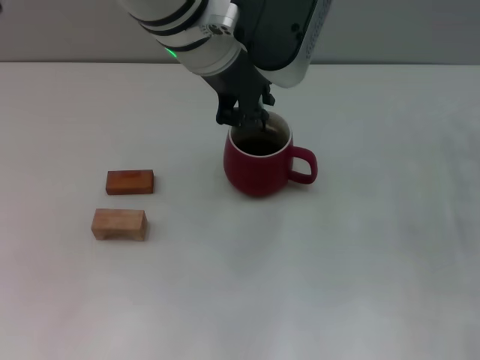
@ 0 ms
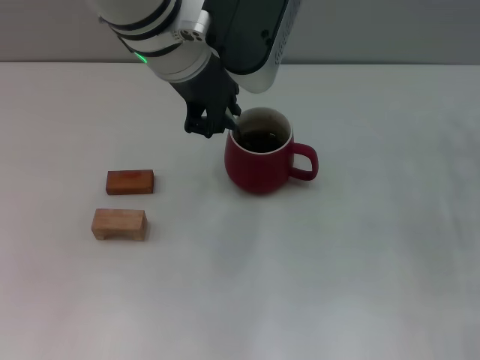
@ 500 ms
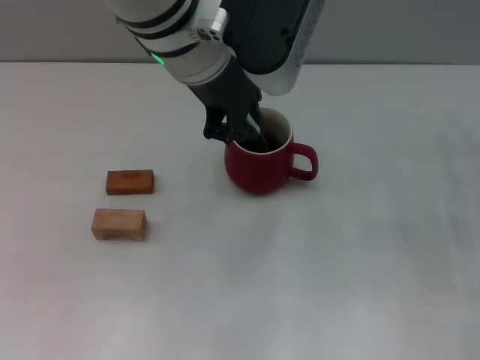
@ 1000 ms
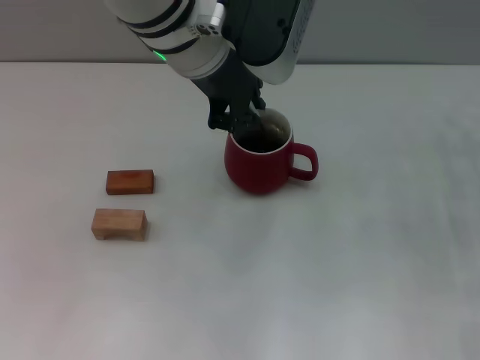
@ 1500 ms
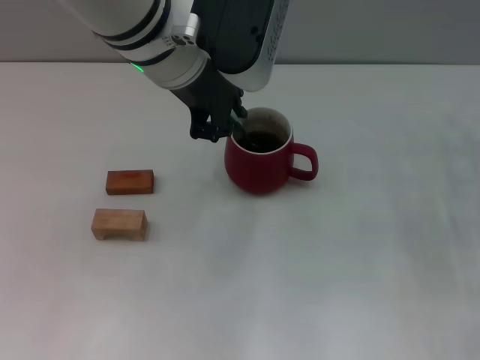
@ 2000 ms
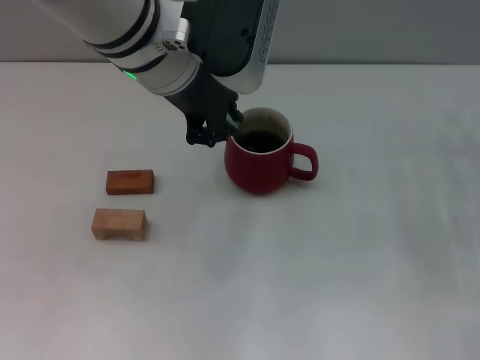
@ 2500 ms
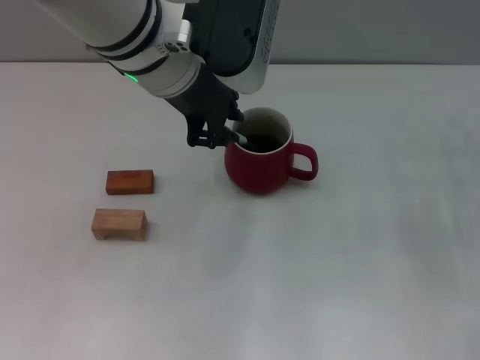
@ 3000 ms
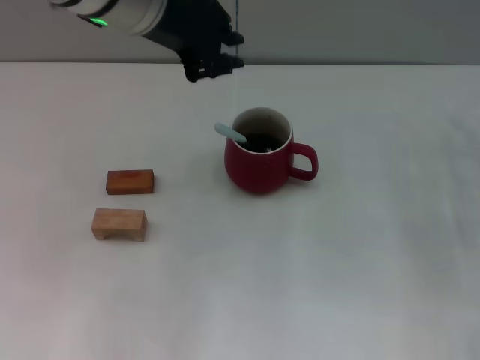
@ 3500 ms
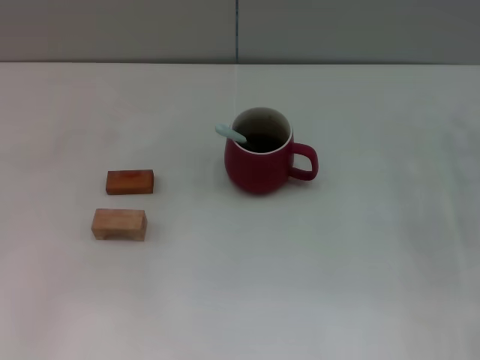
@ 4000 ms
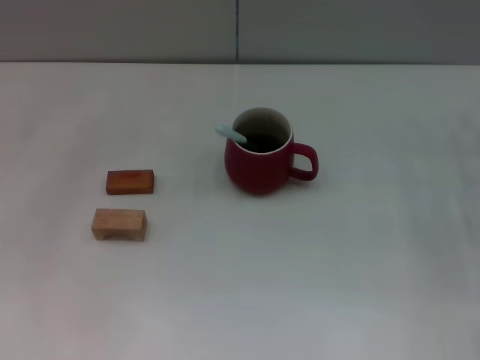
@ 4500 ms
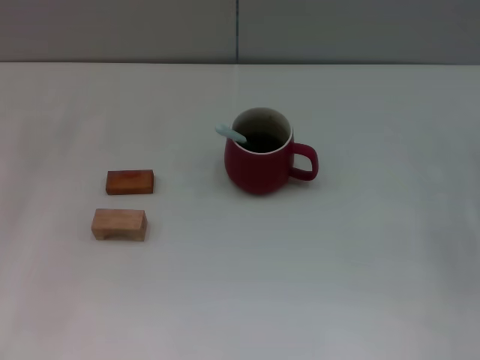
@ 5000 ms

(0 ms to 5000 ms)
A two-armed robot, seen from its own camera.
Task of the whole recording: Move the red cup to the center, lift the blue spoon, stir it three times in the cup, and put the spoon into the cup.
Step, 0 ms - 3000 ms: Stir the coffee in the cup with the left gripper.
0 ms - 2500 ms: The grippers make only small movements.
2500 ms - 5000 ms: The left gripper moves to the left, about 25 cm.

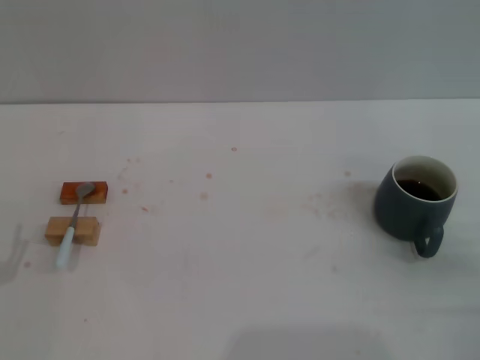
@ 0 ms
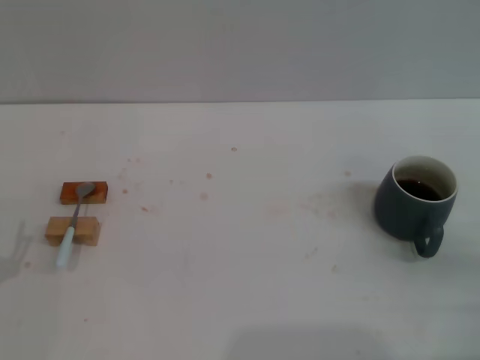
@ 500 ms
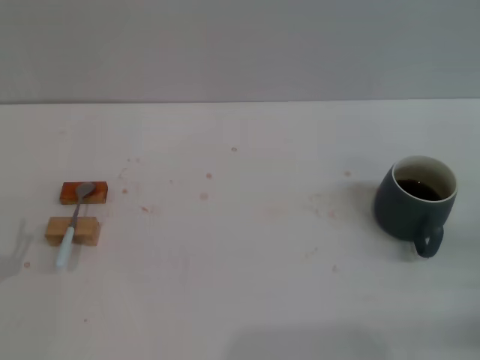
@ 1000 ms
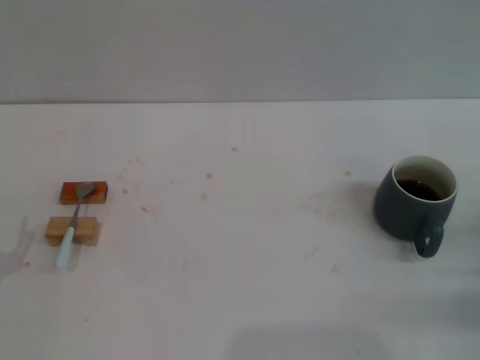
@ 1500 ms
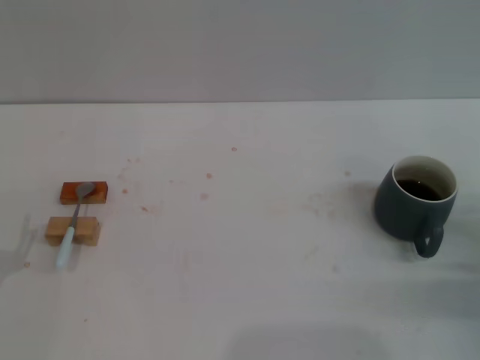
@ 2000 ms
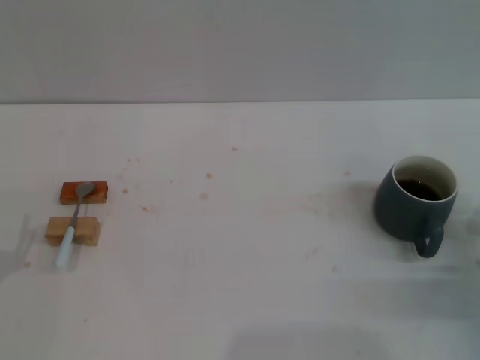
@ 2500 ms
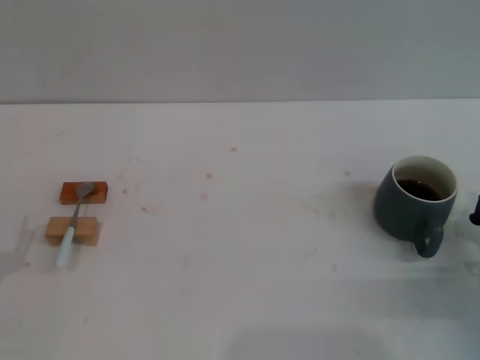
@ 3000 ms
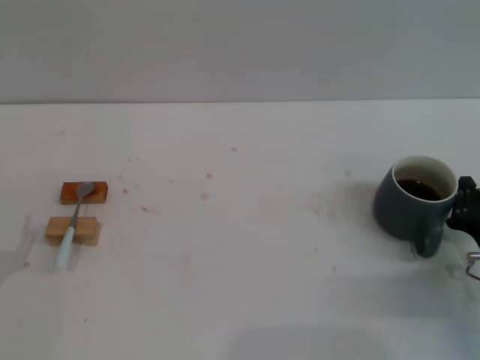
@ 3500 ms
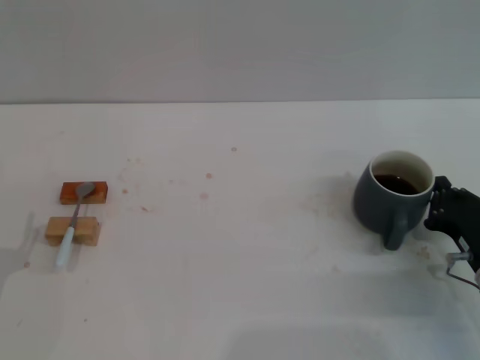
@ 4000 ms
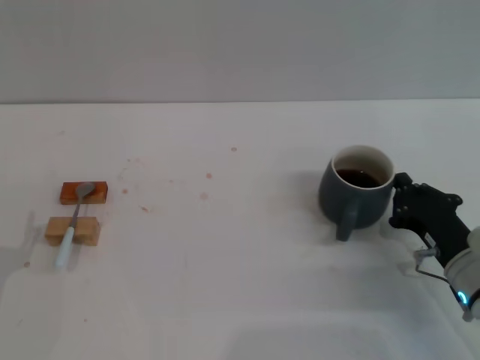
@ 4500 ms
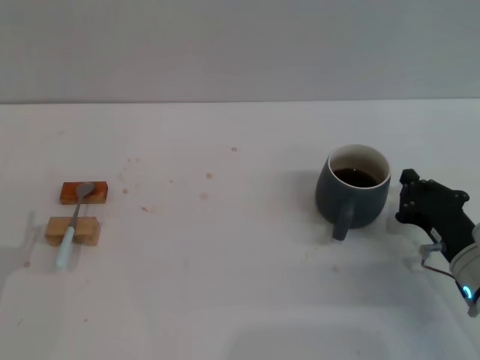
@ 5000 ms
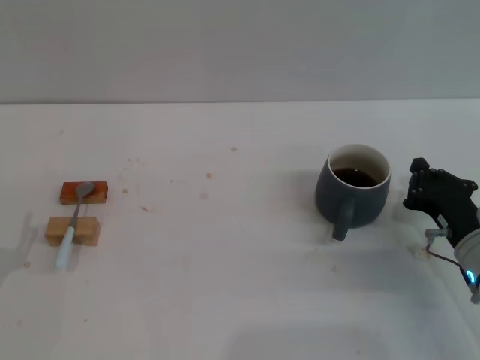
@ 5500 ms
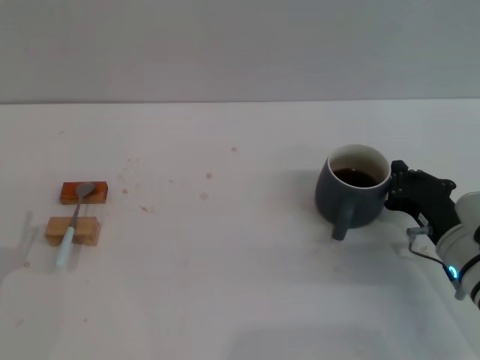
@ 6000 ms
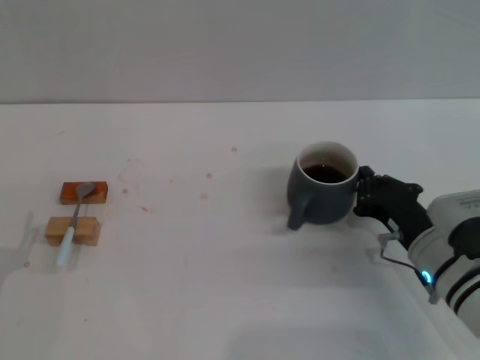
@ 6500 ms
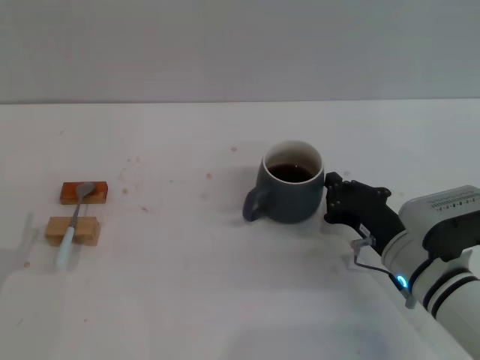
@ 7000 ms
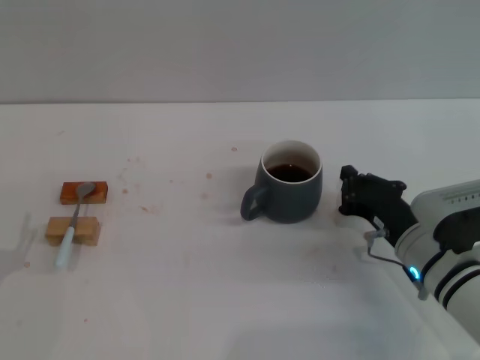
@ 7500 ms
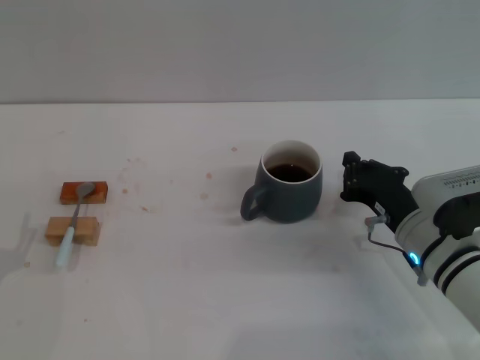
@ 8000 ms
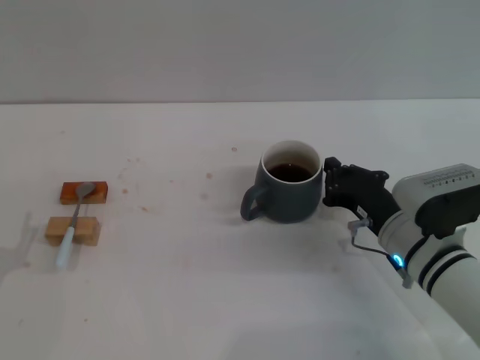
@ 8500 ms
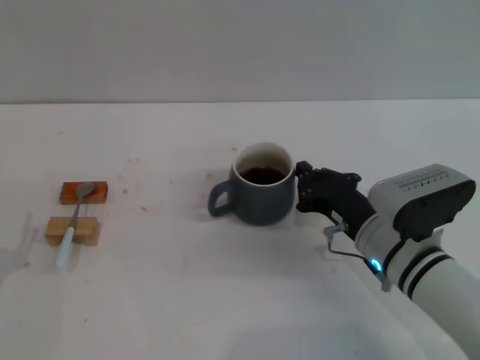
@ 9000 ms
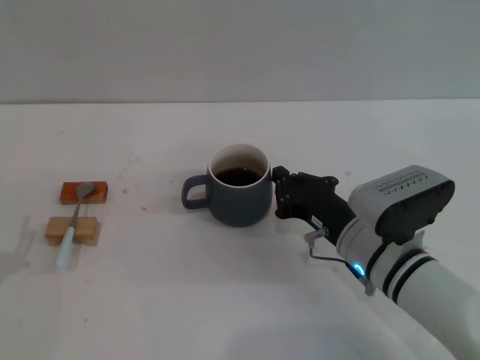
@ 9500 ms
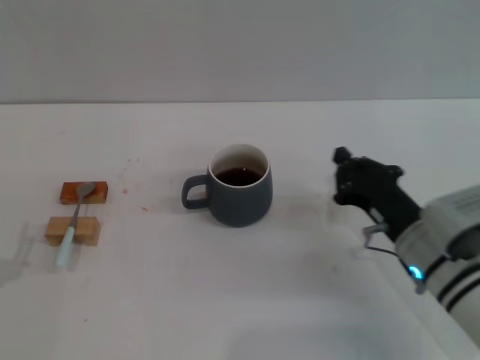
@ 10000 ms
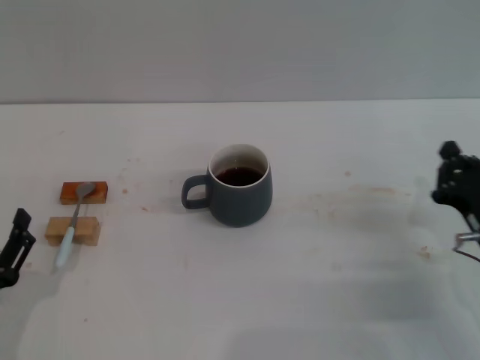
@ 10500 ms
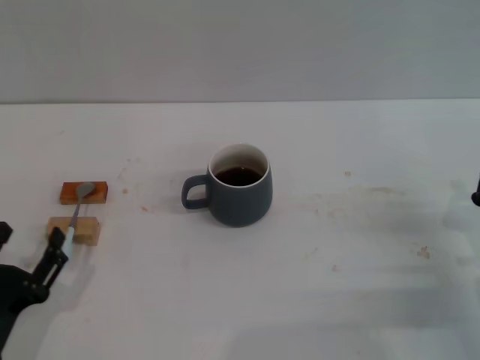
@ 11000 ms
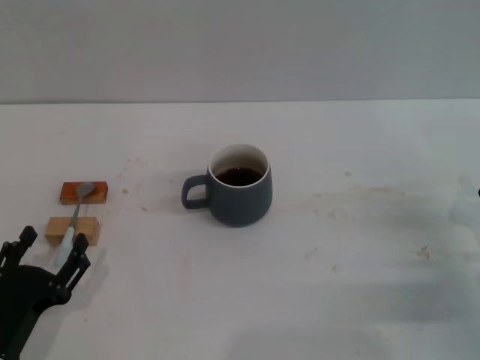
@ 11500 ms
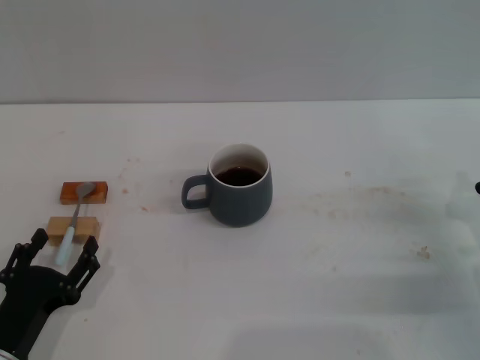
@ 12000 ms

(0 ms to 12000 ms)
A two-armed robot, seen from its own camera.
Task of the whole recording: Move the grey cup to the center, lift the blue spoon, stir it three times in the cup, and put the spoon into the cup.
Step, 0 ms - 9500 ms: Move the cup with coffee to the center of view with the right gripper.
0 ms - 2000 ms: The right gripper is displaced forward by approximately 5 cm.
2000 ms - 4000 ms: The right gripper heads to the left, covering approximately 5 cm.
4000 ms - 6000 ms: The grippers move only a little.
6000 ms - 8000 ms: The grippers stay close to where they were, moving slightly.
8000 ms - 10000 ms: The grippers make only small movements.
10000 ms - 12000 ms: The left gripper moves to the right, about 5 cm. The right gripper is displaced to the right by about 10 cm.

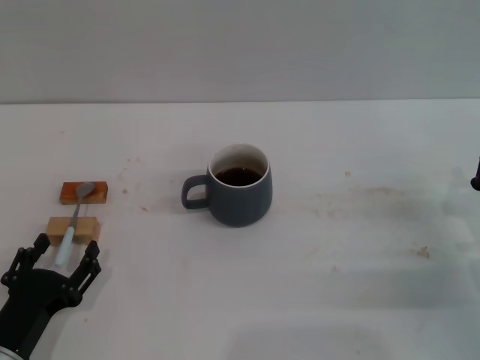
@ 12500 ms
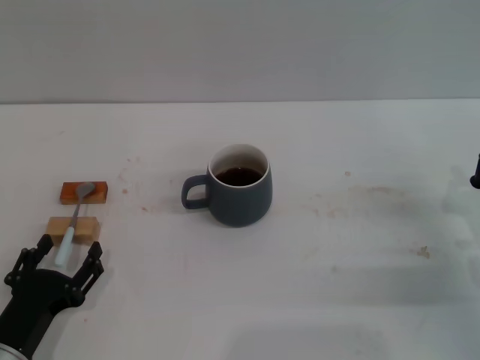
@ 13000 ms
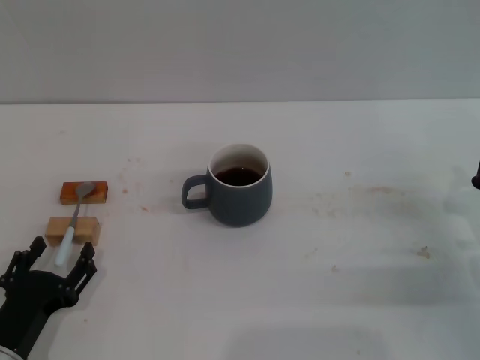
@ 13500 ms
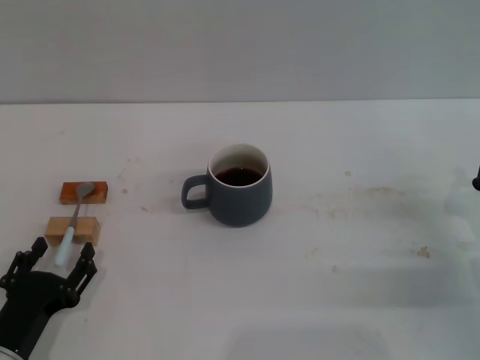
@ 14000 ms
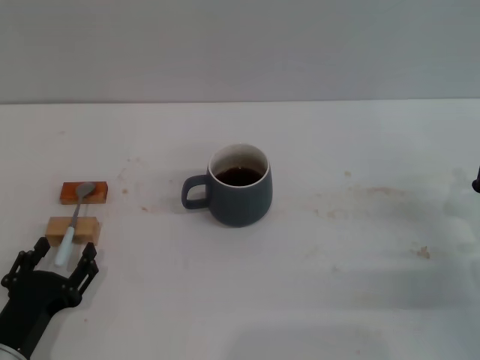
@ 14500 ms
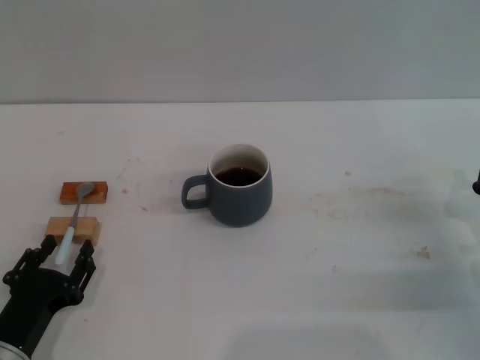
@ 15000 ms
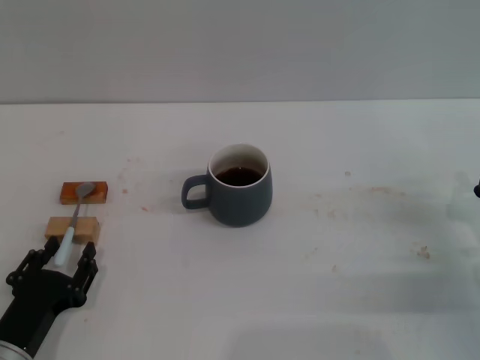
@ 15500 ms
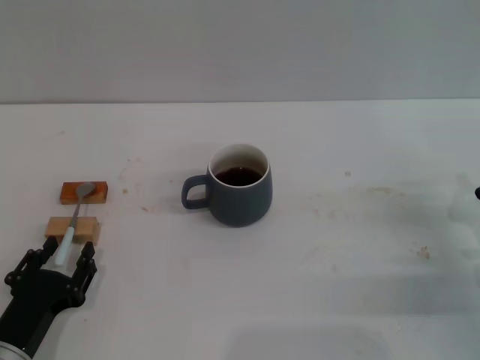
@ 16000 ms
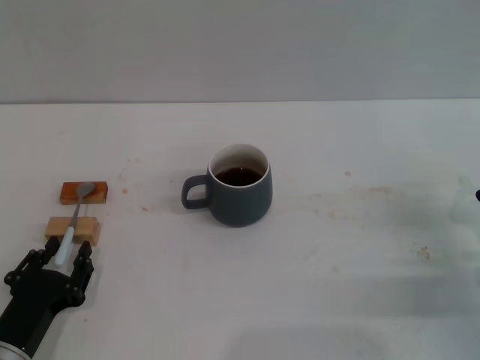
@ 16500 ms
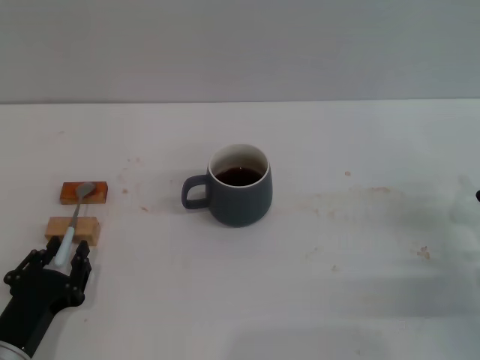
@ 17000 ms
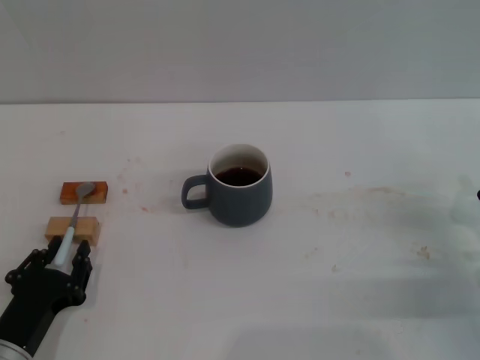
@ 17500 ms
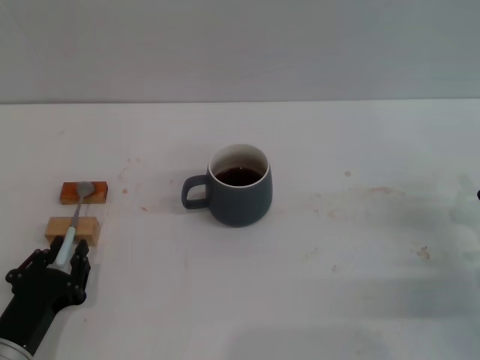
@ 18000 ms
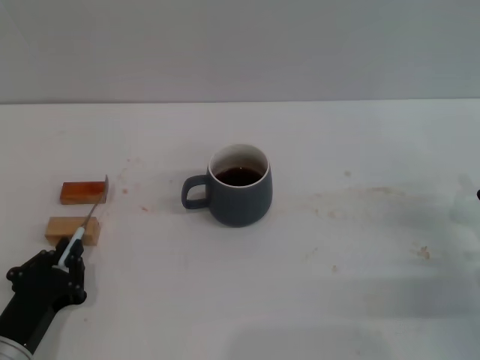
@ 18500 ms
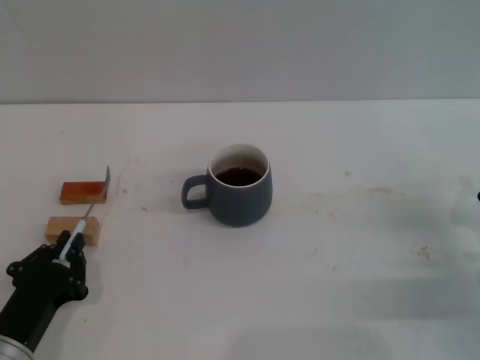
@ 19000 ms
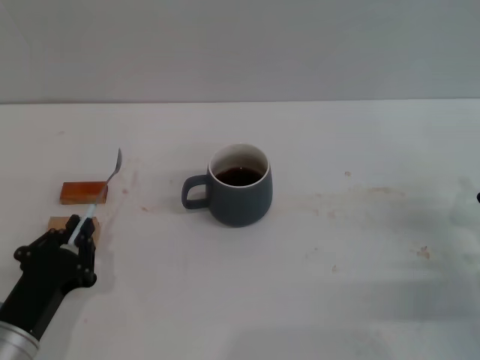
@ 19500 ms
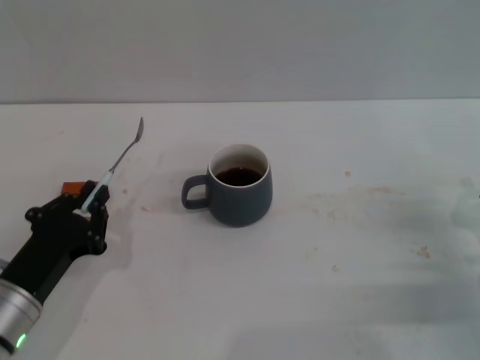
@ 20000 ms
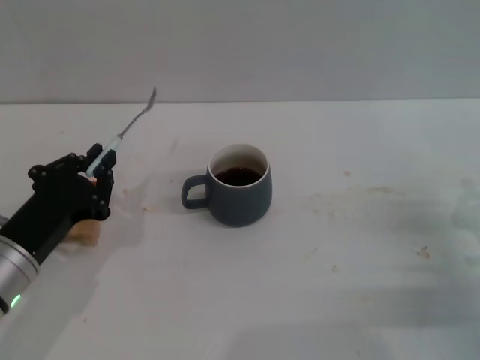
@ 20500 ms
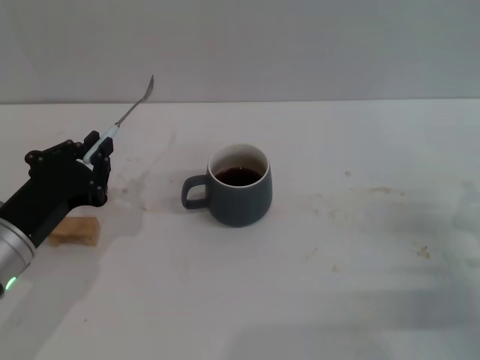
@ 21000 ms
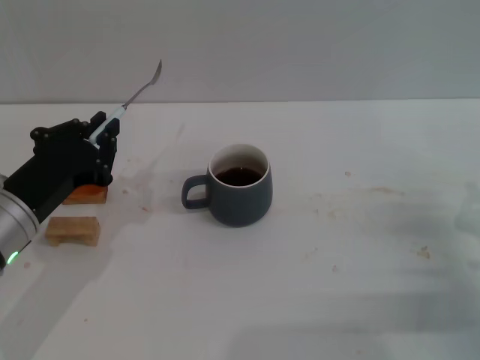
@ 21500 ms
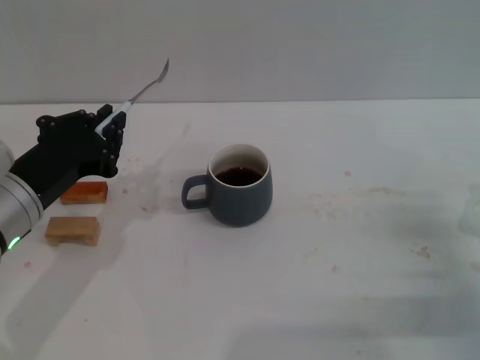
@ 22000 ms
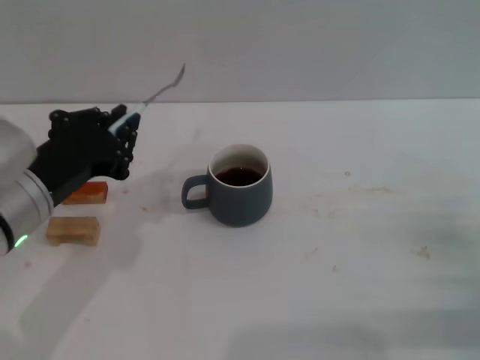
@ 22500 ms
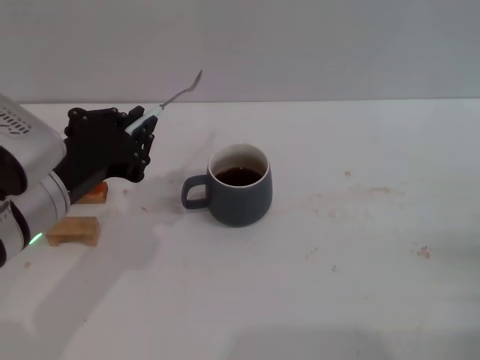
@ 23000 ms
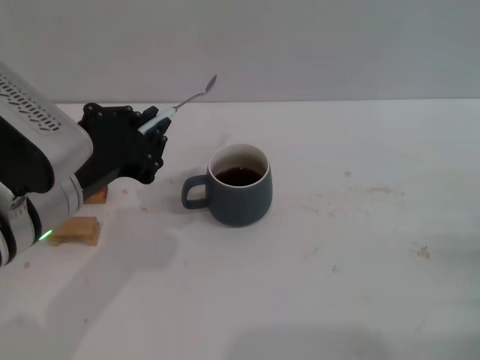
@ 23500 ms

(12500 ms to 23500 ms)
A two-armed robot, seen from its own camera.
Task of the whole recording: Move the grey cup to the center, lift the blue spoon, stir it three times in the cup, and put the spoon into the cup.
Step, 12500 ms - 19500 ms: Pick up the spoon with the left gripper.
12500 ms - 18000 ms: The two grippers keep their place.
18000 ms - 20000 ms: The left gripper shifts by about 5 cm.
20000 ms - 21500 ms: The left gripper moves upward, some 10 cm.
21500 ms - 23500 ms: The left gripper shifts roughly 10 cm upward and to the right, while the right gripper changes place by approximately 5 cm.
